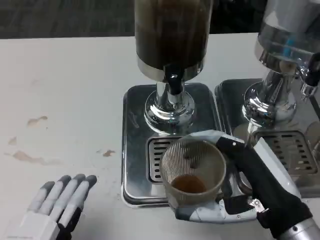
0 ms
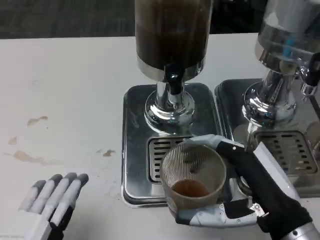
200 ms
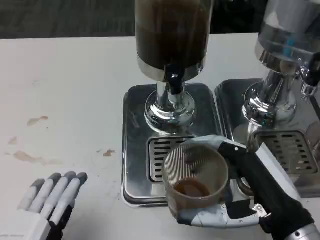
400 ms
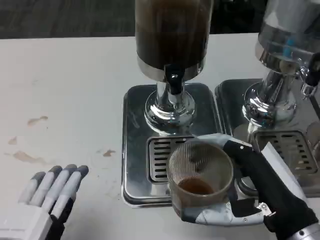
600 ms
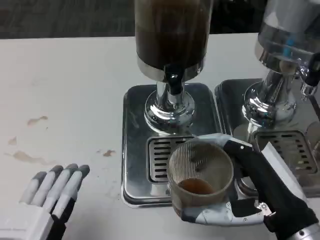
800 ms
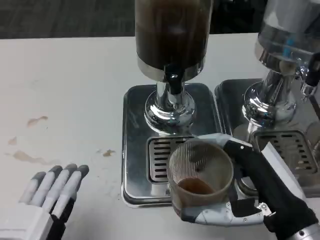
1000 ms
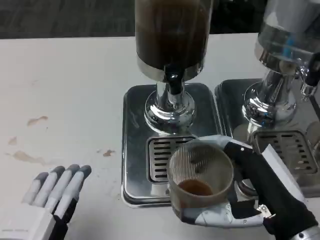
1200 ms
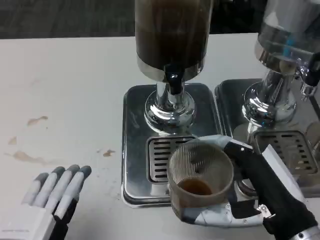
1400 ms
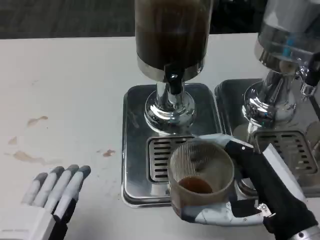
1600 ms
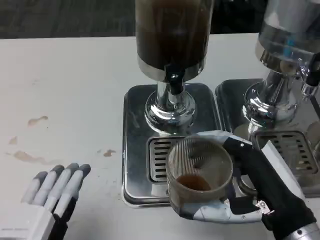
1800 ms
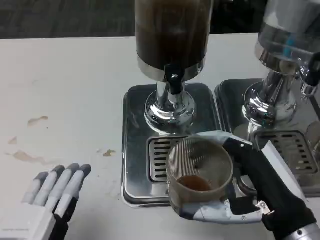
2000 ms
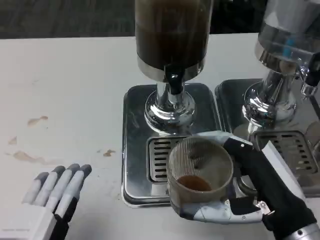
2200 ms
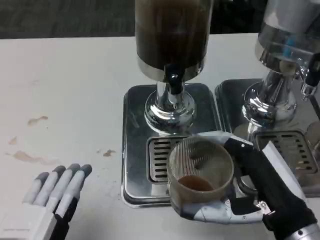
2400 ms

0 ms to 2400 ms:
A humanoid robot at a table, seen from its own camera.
Task of the whole recording: Grasp the cup under the faucet to collect the drink, then remove the cup.
0 ms to 2400 ms: The two hands keep their place.

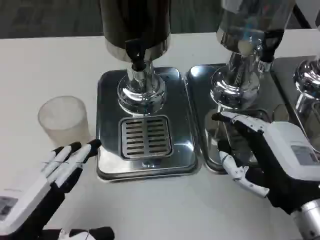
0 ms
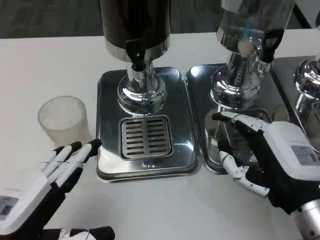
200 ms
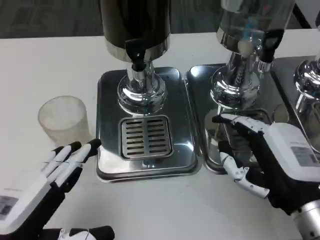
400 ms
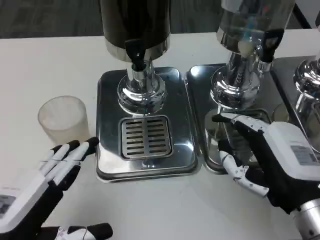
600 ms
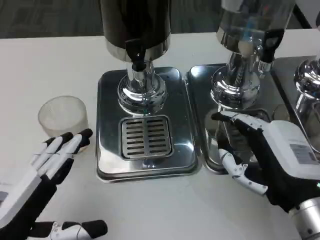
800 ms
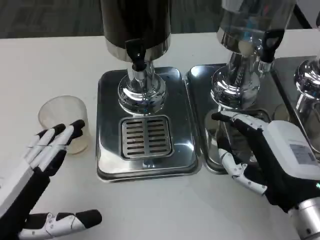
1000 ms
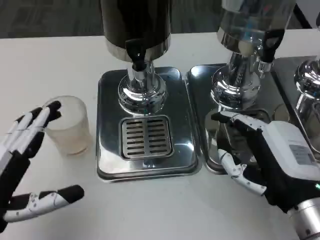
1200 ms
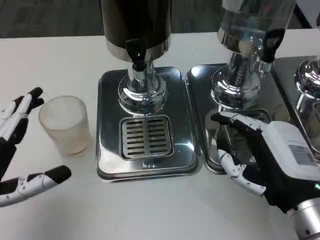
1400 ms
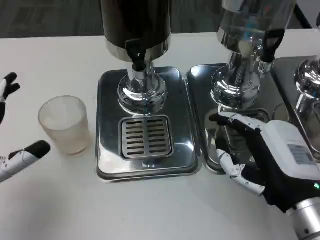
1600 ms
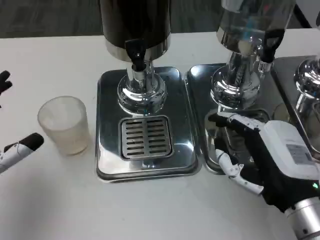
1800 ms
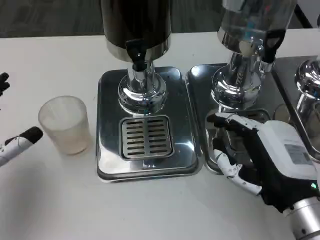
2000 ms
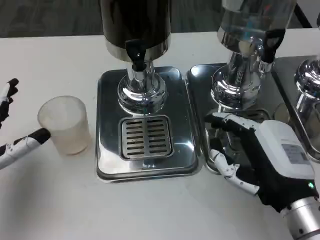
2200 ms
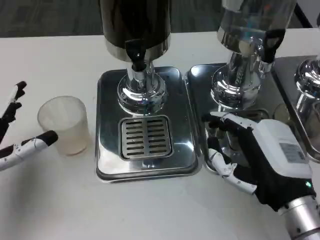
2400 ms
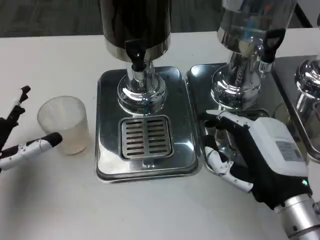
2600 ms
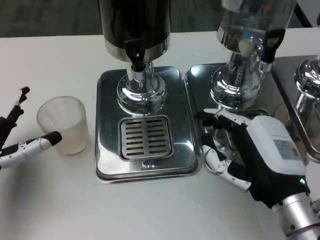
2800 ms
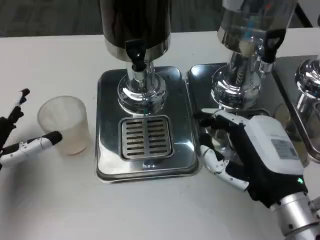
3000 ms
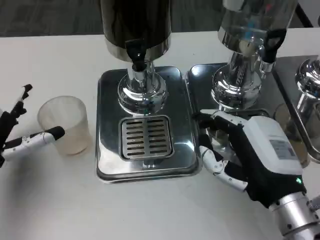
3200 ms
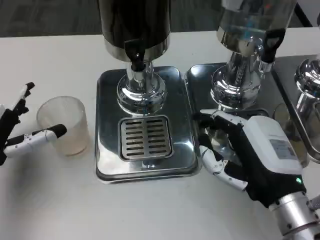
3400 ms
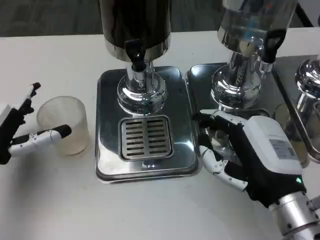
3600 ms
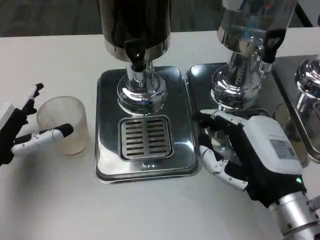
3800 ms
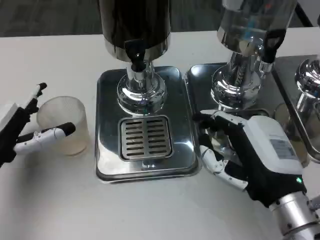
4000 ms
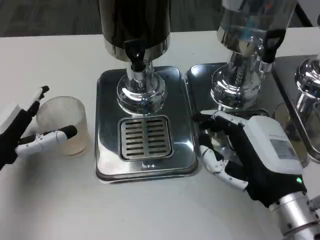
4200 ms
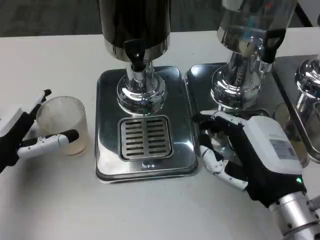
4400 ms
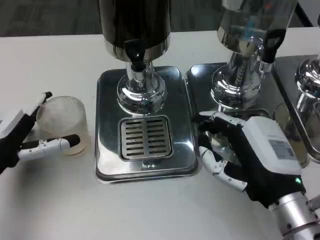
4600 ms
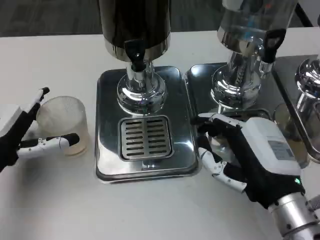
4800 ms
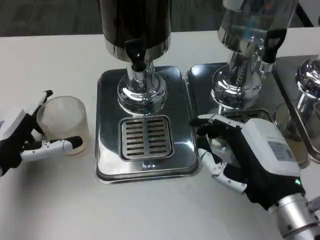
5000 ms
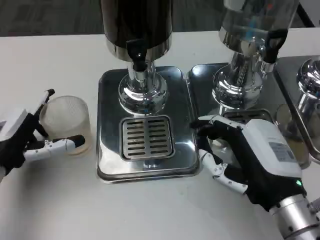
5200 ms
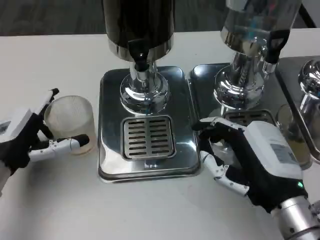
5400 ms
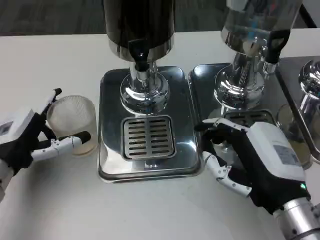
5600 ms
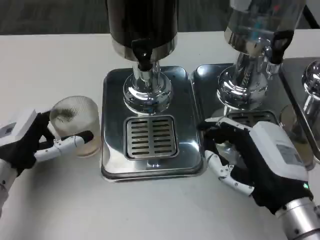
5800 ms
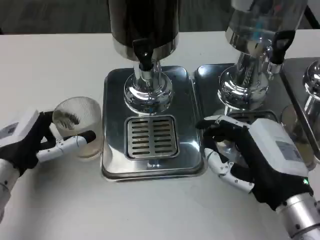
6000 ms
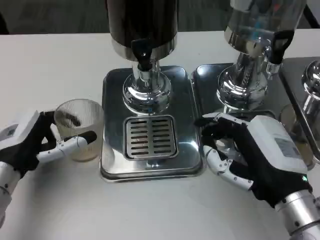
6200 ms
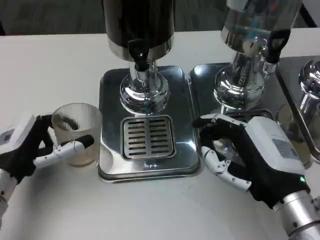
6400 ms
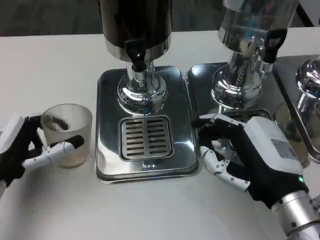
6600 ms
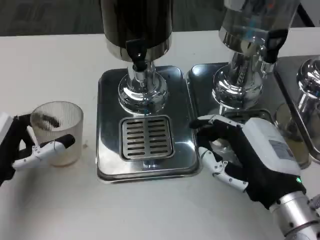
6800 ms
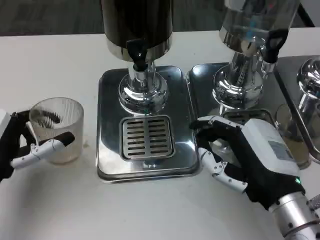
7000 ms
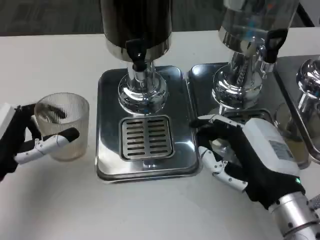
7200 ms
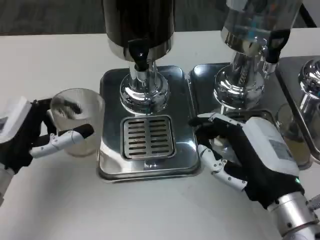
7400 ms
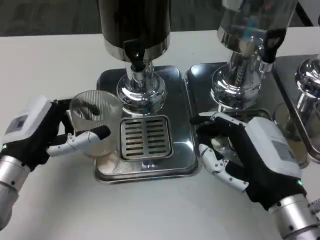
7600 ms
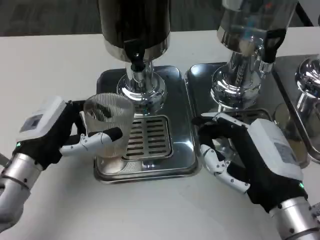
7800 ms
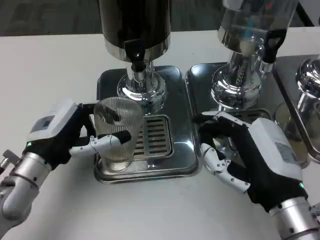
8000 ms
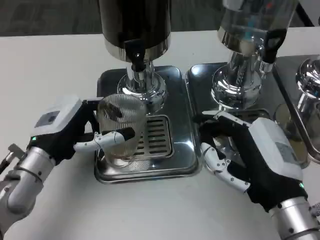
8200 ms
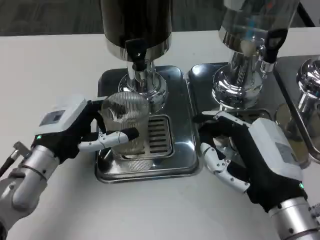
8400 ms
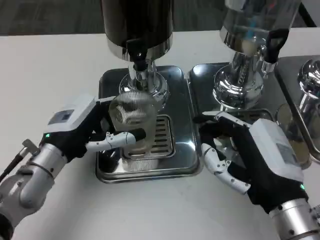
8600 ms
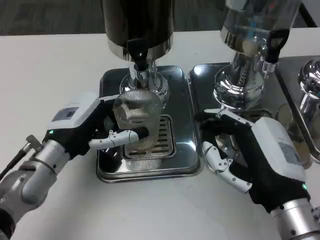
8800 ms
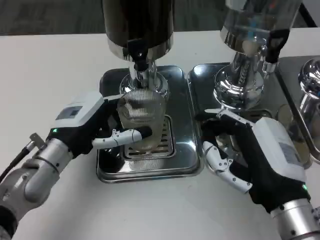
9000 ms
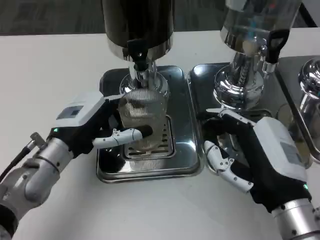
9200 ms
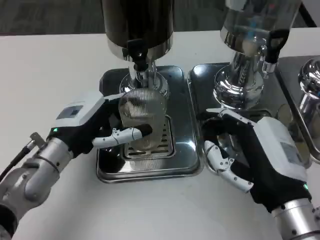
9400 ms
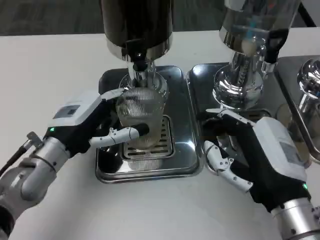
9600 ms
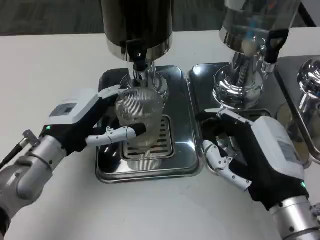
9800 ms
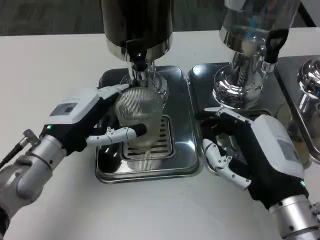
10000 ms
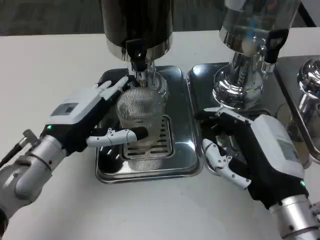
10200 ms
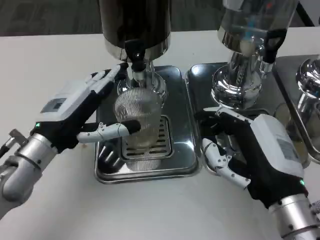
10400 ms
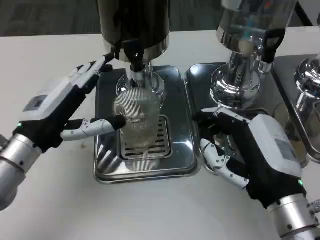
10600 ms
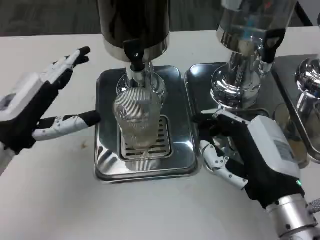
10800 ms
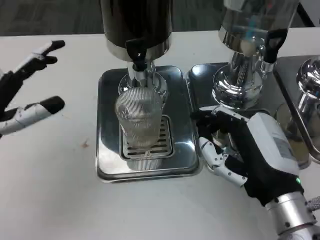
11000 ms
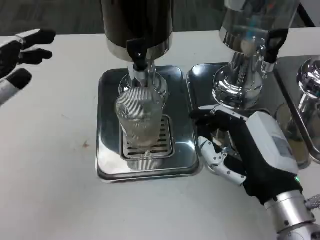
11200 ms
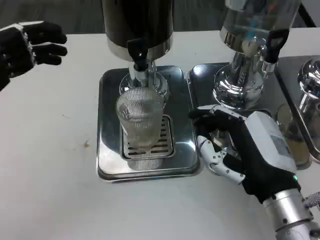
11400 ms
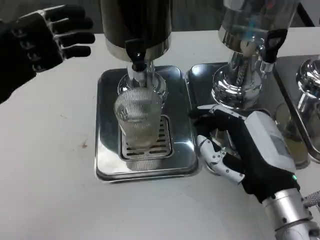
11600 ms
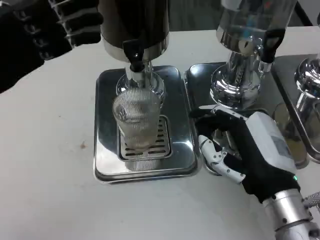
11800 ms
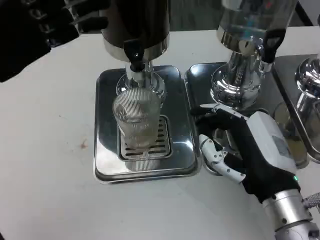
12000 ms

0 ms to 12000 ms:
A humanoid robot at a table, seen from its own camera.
Task of the whole recording: Grasp the cup under the faucet to collect the drink, then remove the cup.
0 ms to 1600 ms: The left hand travels forward by roughly 5 cm.
1600 ms to 3000 ms: The left hand is displaced forward by roughly 5 cm.
3000 ms to 4400 ms: The hands move only a little.
7600 ms to 9000 ms: The left hand moves roughly 5 cm.
10400 ms to 12000 ms: The left hand heads upward and to the left, covering about 15 cm.

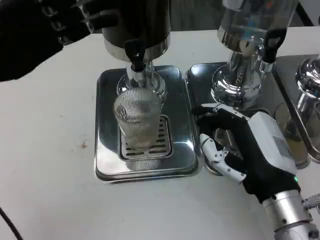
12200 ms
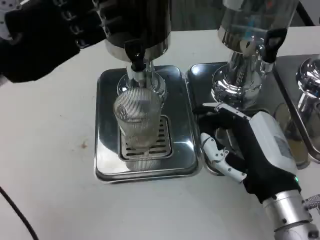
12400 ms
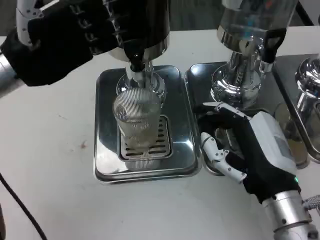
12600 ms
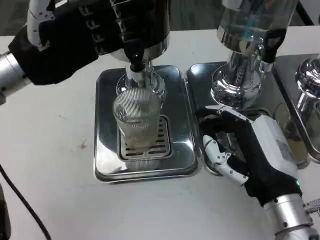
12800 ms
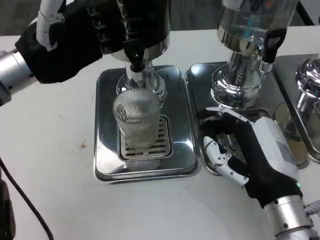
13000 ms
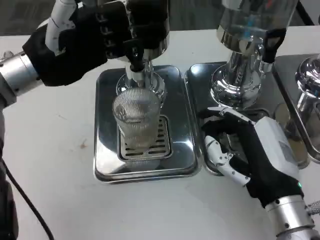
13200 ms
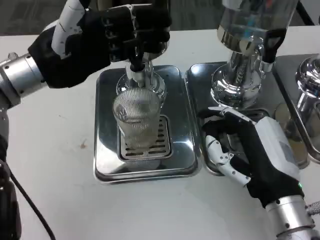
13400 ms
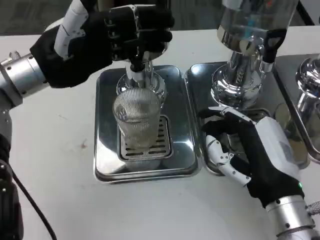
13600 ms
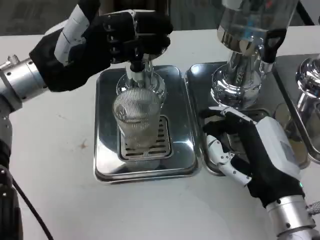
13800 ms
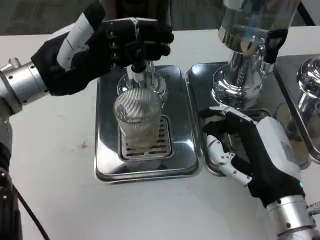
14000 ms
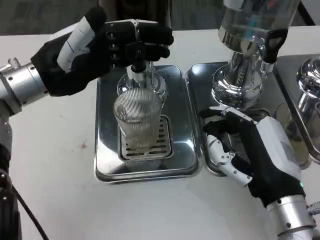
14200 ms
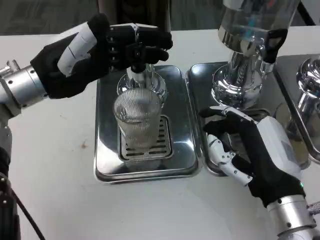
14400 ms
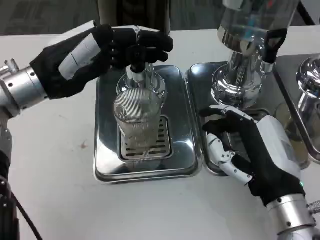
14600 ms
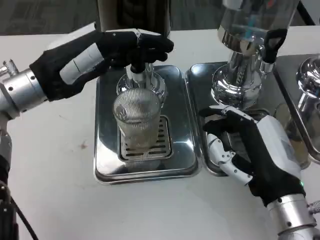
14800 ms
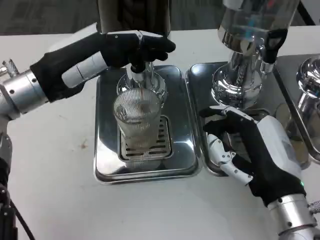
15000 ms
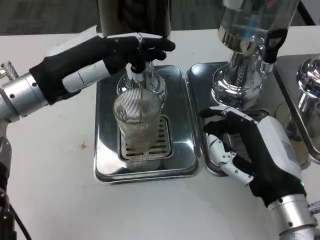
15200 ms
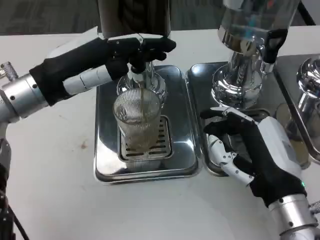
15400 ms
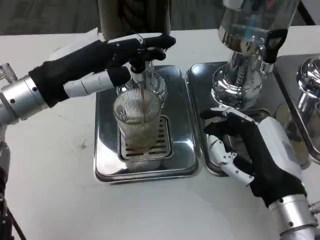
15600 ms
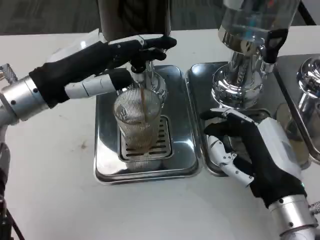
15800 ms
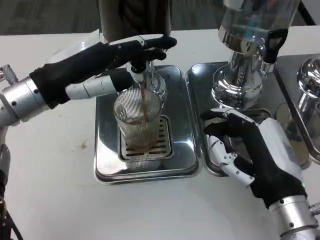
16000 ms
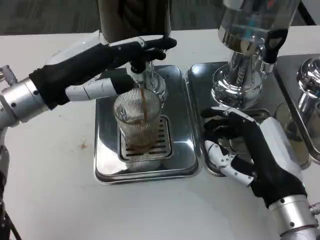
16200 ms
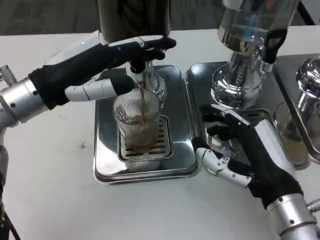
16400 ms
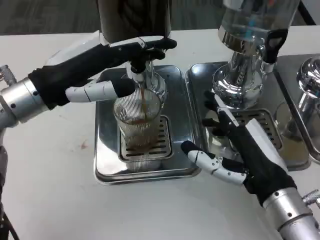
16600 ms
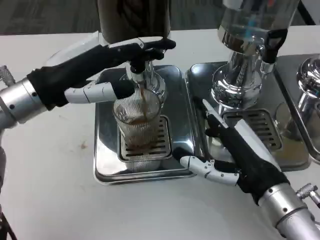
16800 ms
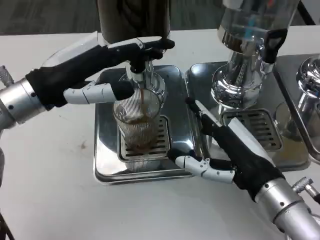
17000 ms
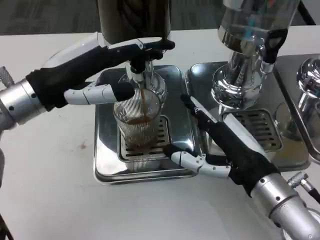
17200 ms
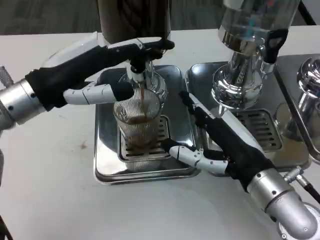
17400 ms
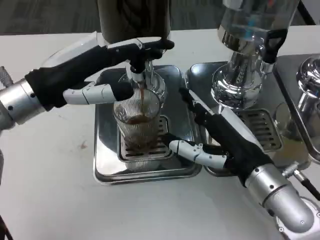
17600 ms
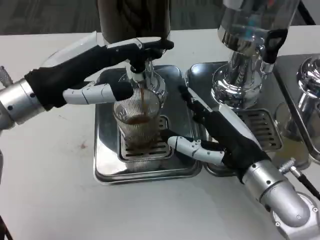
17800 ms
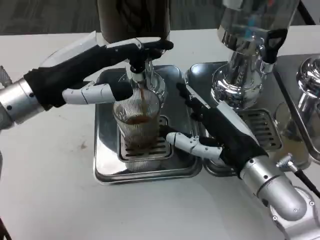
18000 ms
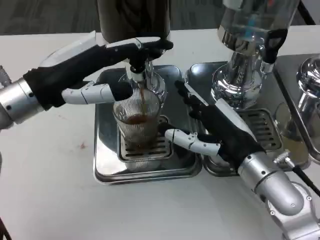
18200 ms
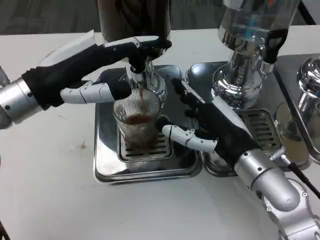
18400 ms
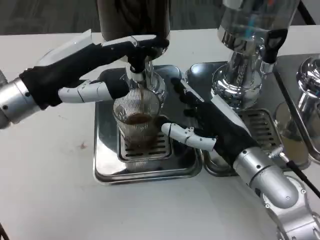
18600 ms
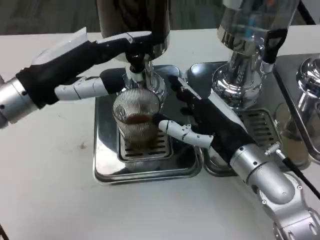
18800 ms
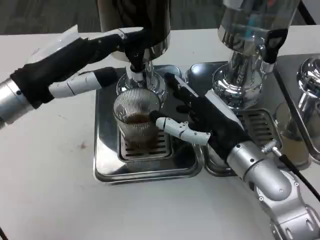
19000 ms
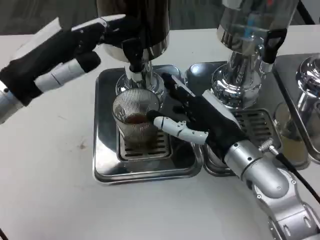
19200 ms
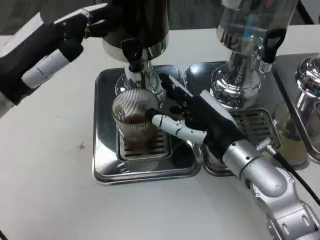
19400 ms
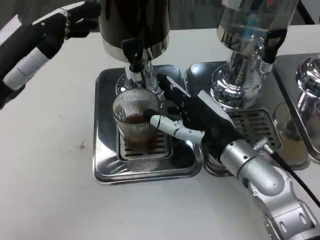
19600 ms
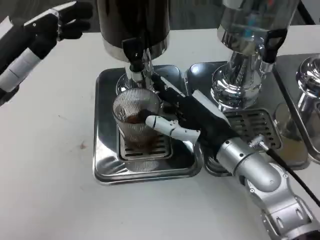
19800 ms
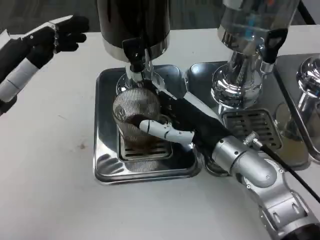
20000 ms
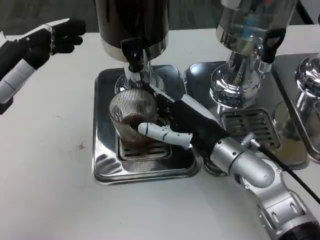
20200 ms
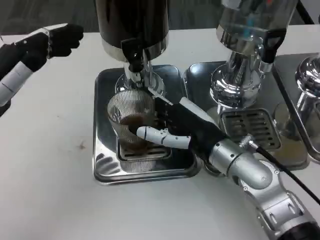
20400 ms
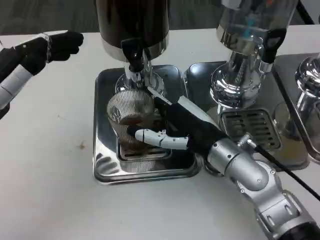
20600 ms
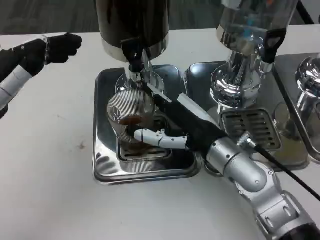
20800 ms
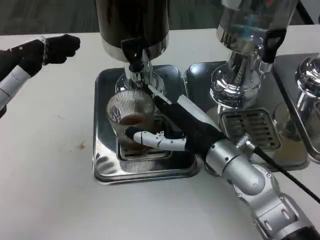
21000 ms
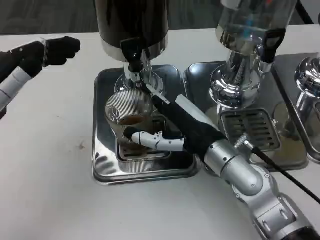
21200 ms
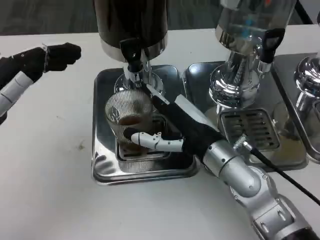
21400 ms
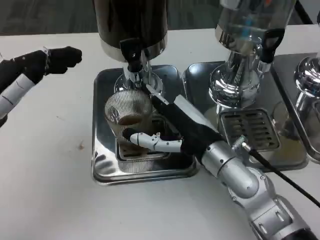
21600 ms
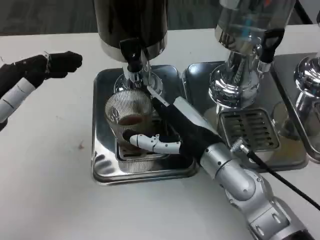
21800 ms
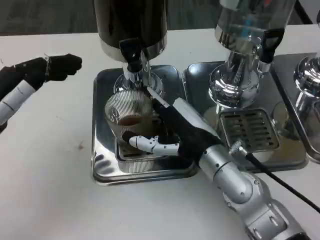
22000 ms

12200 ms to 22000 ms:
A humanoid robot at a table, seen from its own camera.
Task of the whole recording: Grasp the cup under the faucet to collect the drink, then remove the cup.
12200 ms to 13600 ms: The left hand moves to the right, approximately 5 cm.
15000 ms to 16400 ms: The hands move only a little.
16400 ms to 17800 ms: The right hand is displaced forward by about 5 cm.
19200 ms to 20600 ms: The left hand shifts by roughly 5 cm.
